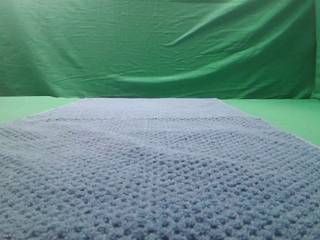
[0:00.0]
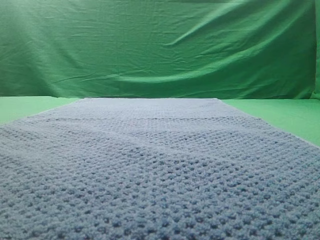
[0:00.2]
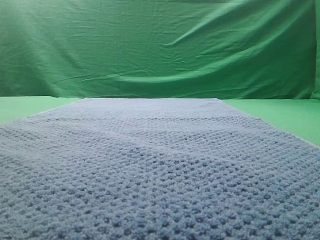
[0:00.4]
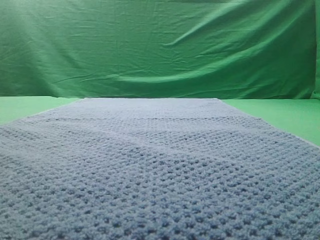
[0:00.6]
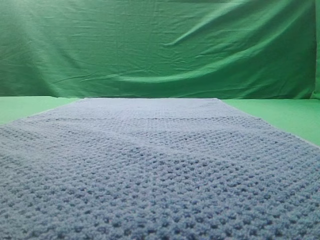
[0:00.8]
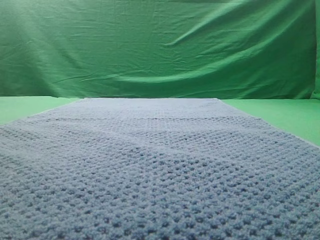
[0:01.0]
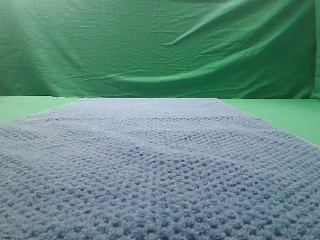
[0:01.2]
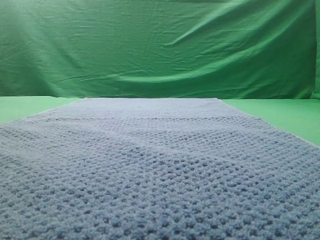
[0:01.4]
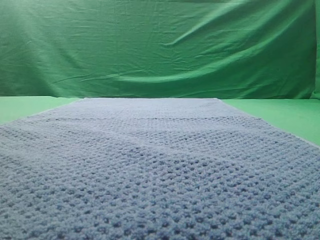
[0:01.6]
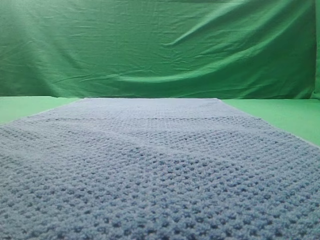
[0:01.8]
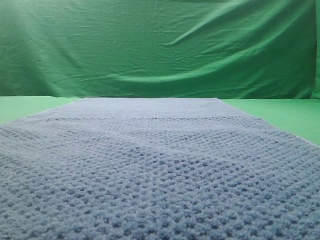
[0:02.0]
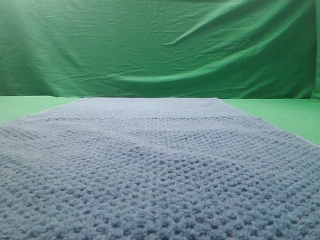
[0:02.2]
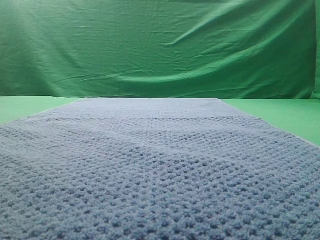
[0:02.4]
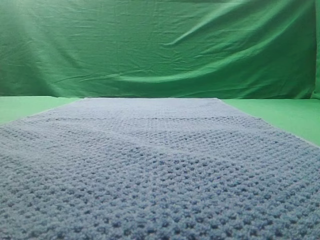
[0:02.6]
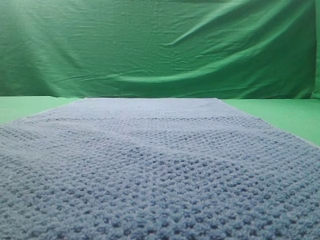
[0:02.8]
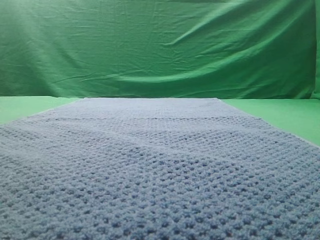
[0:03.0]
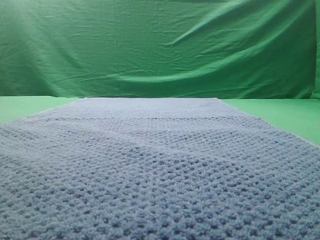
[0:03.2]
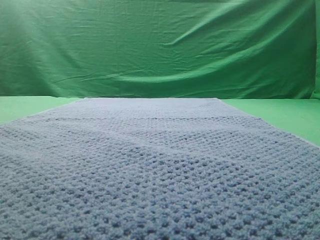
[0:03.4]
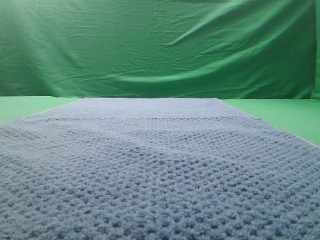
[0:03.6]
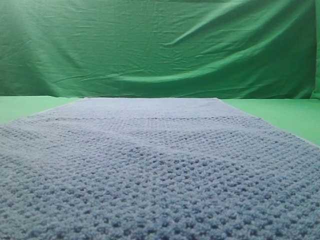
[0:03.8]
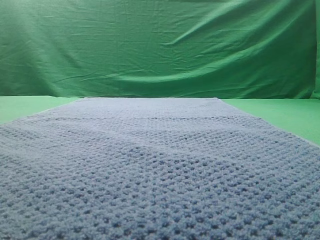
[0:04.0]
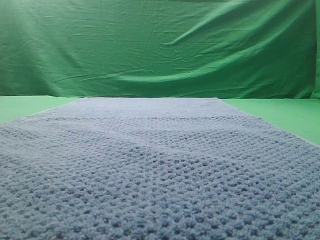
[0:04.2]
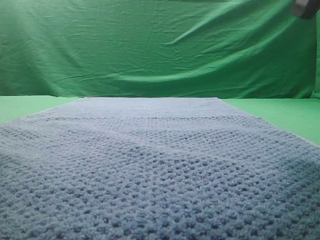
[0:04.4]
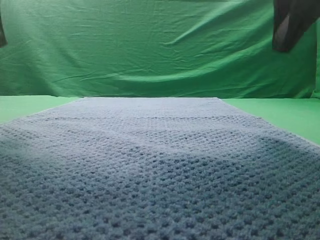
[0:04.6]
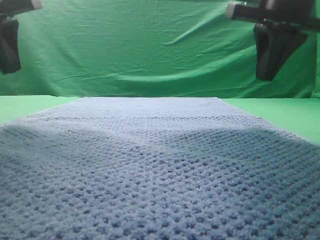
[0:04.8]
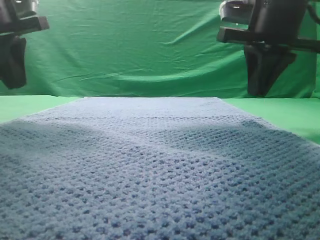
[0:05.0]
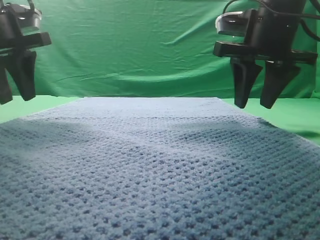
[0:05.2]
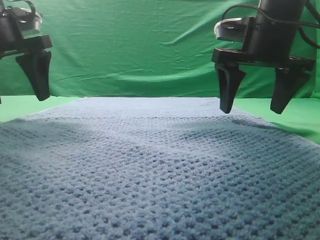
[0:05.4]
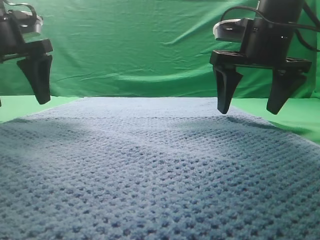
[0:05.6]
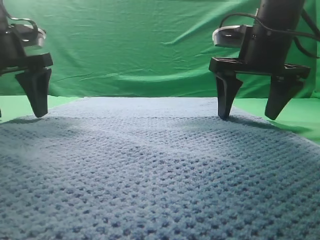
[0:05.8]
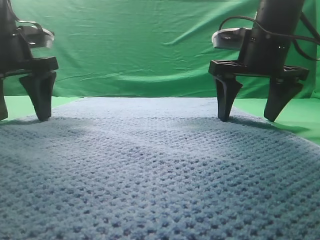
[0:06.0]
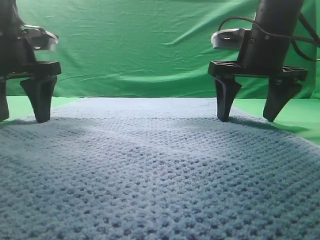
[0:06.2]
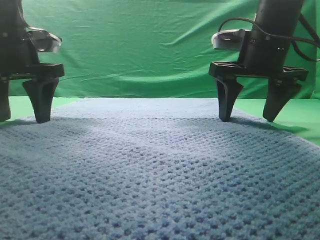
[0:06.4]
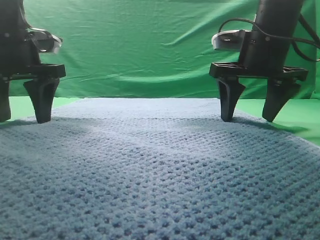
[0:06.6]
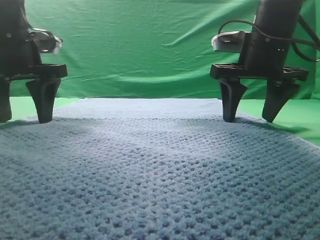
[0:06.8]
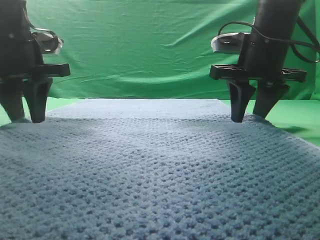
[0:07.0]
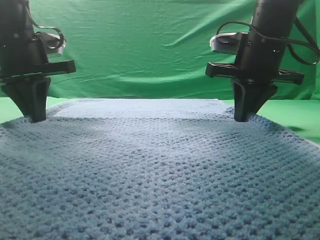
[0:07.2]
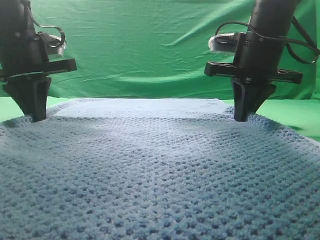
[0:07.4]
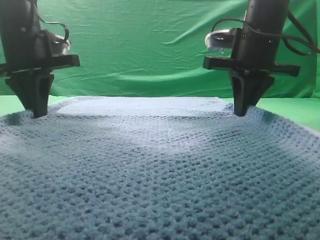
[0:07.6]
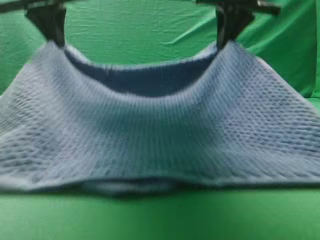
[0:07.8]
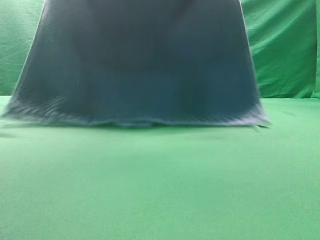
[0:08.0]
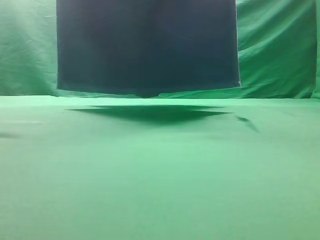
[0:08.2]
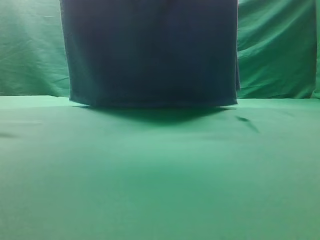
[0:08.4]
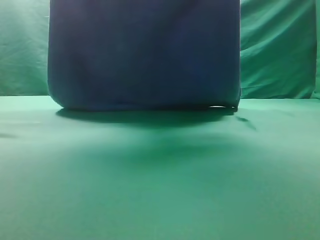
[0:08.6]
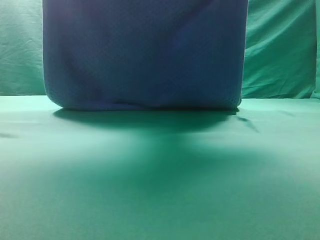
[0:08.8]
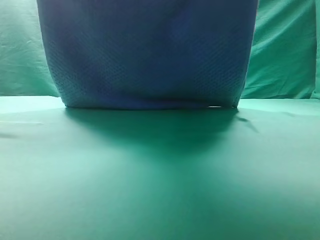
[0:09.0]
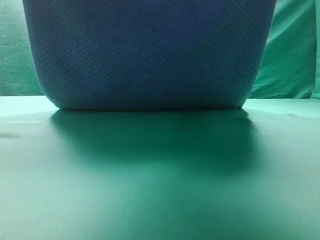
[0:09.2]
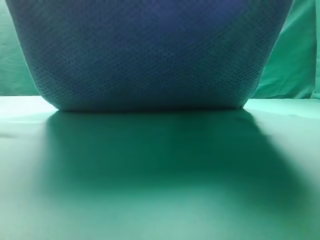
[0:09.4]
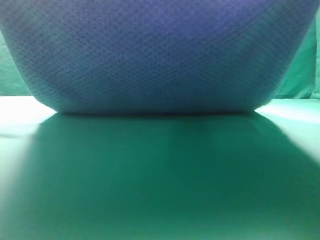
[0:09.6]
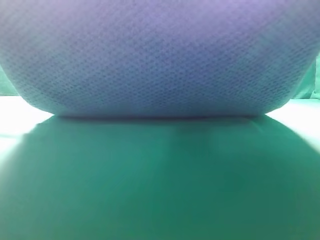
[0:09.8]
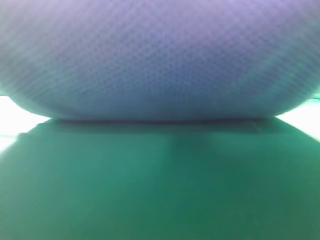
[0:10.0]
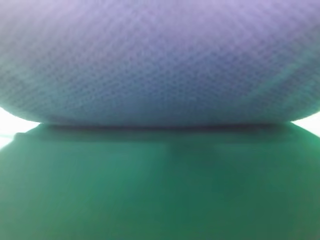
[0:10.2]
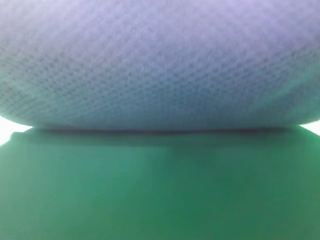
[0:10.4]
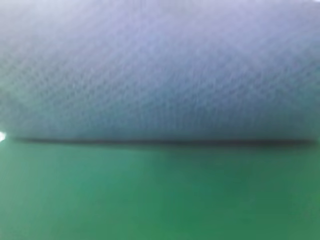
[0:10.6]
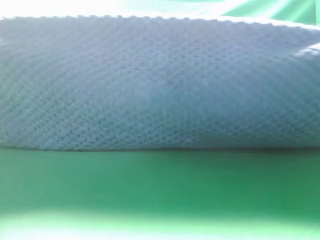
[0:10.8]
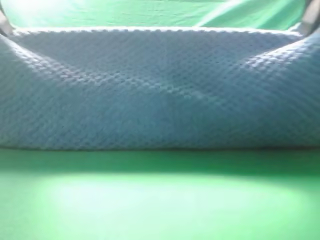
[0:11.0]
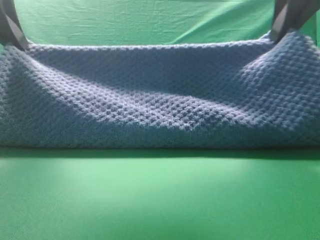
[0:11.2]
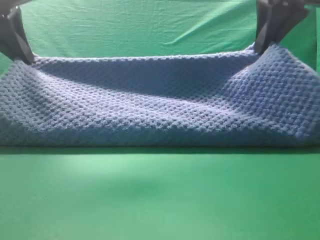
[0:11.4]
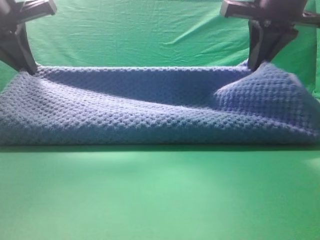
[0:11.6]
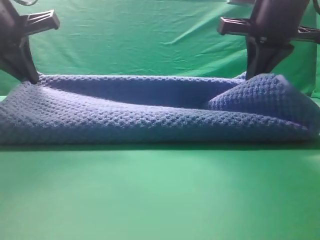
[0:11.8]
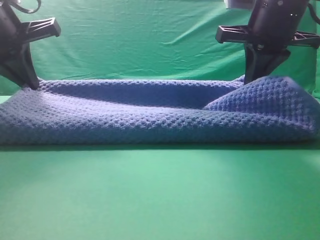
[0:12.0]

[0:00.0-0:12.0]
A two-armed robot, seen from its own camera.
Task of the whole recording: fold the towel on the table twice.
Step, 0:00.0 to 0:08.0: pick up the towel with two arm.
